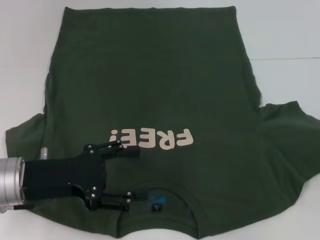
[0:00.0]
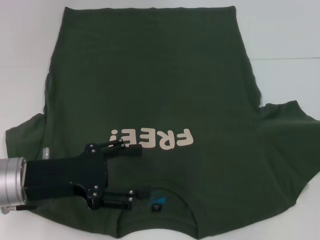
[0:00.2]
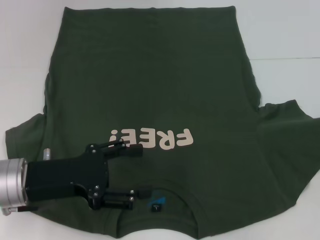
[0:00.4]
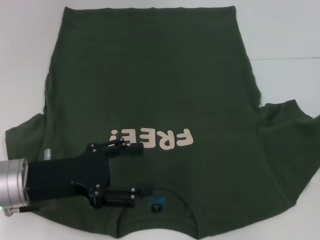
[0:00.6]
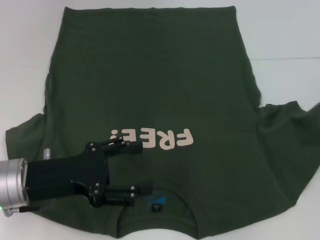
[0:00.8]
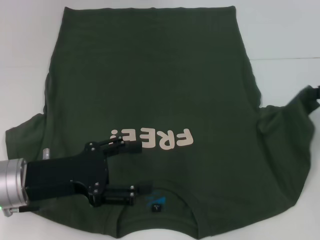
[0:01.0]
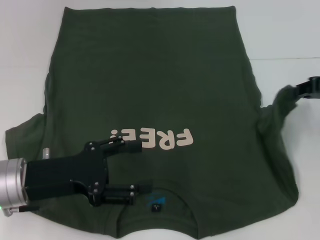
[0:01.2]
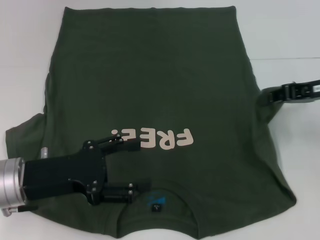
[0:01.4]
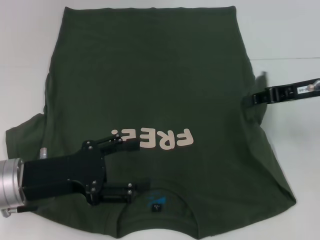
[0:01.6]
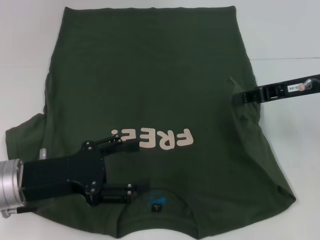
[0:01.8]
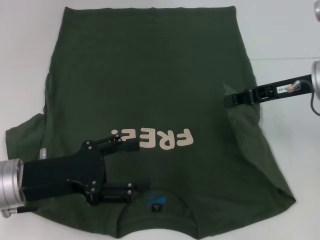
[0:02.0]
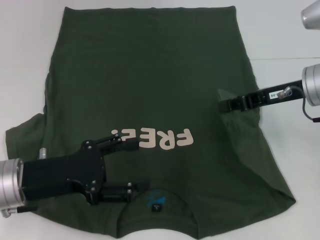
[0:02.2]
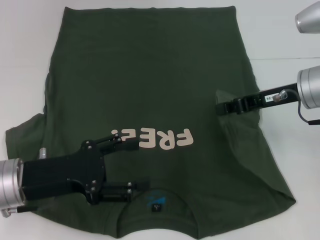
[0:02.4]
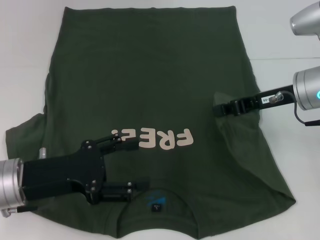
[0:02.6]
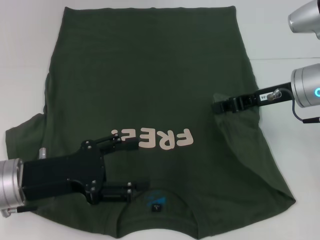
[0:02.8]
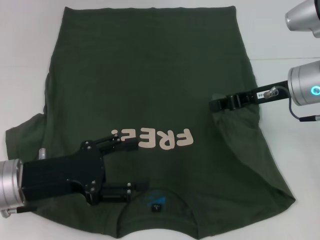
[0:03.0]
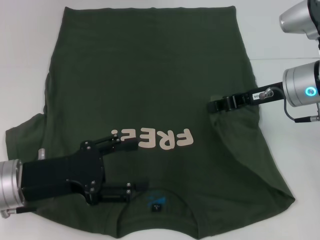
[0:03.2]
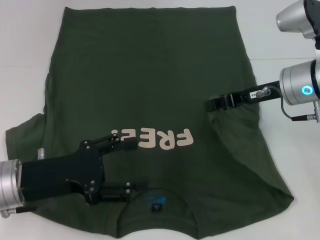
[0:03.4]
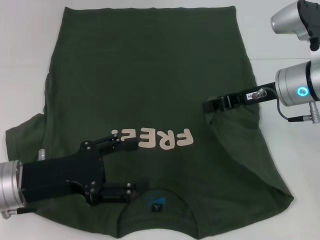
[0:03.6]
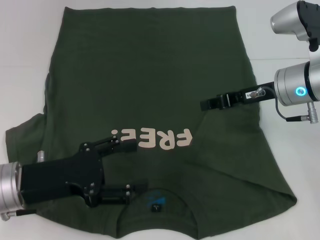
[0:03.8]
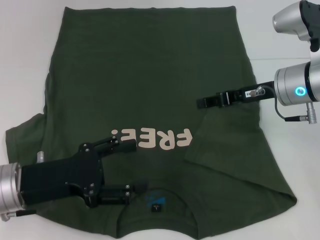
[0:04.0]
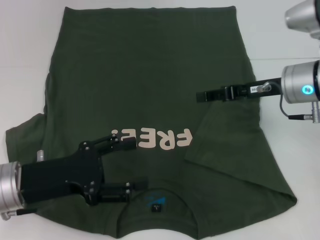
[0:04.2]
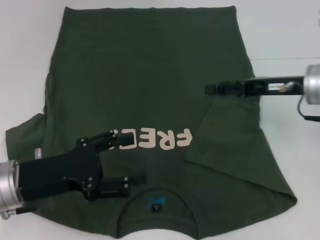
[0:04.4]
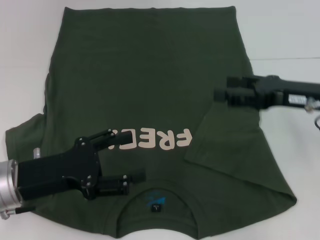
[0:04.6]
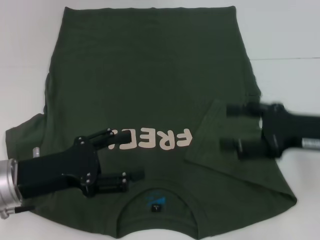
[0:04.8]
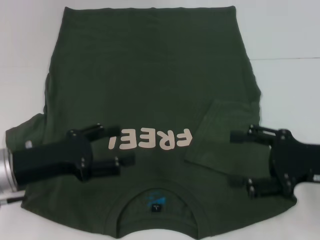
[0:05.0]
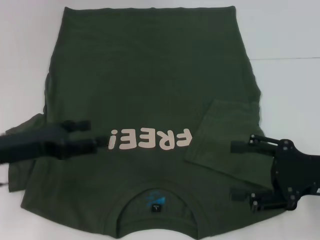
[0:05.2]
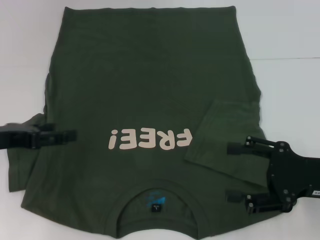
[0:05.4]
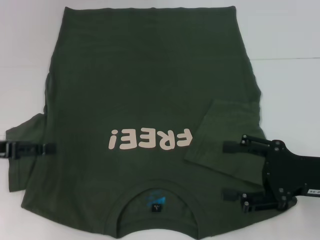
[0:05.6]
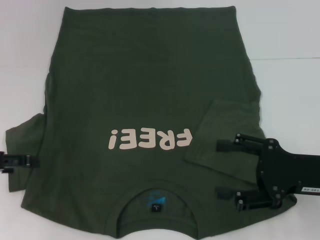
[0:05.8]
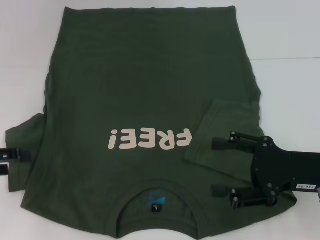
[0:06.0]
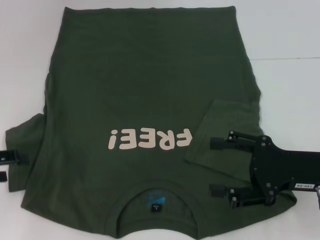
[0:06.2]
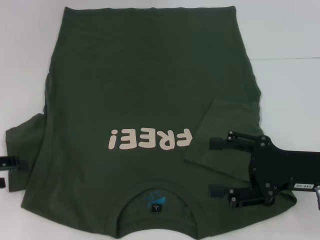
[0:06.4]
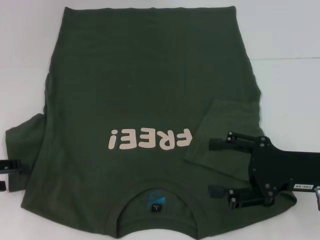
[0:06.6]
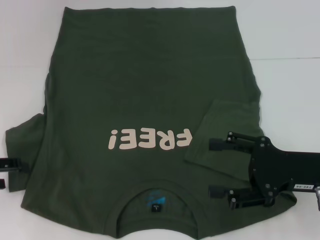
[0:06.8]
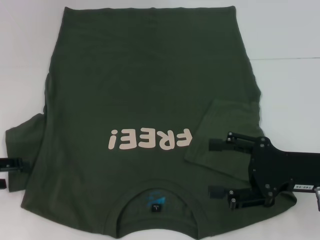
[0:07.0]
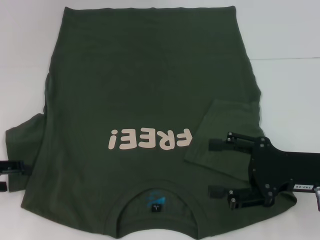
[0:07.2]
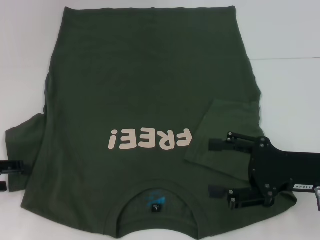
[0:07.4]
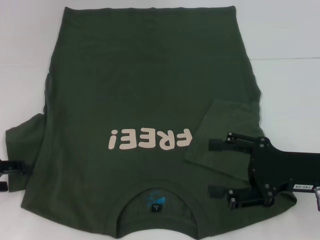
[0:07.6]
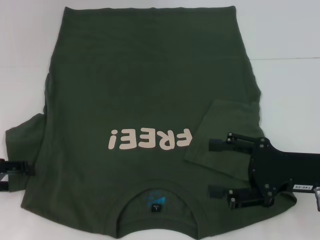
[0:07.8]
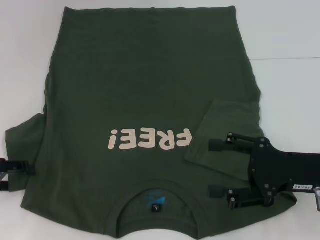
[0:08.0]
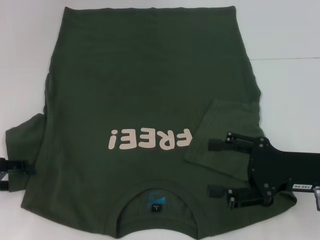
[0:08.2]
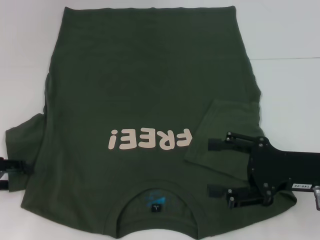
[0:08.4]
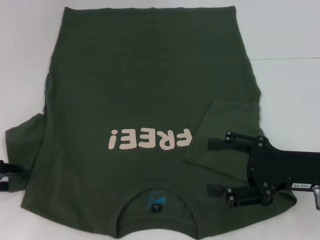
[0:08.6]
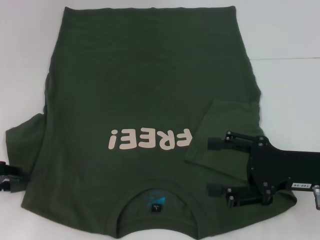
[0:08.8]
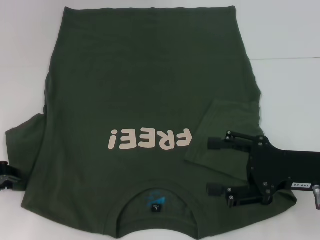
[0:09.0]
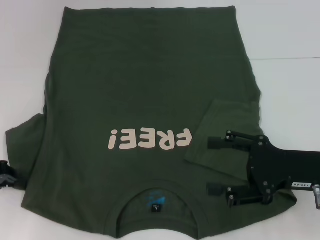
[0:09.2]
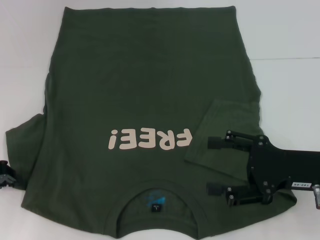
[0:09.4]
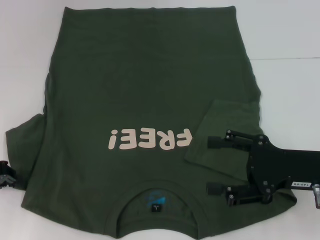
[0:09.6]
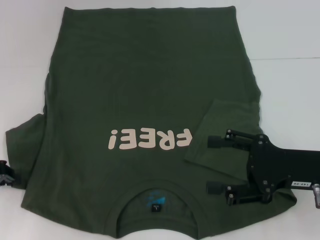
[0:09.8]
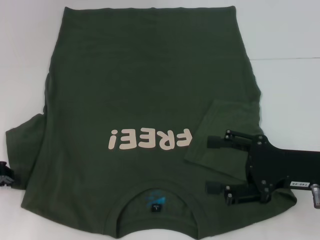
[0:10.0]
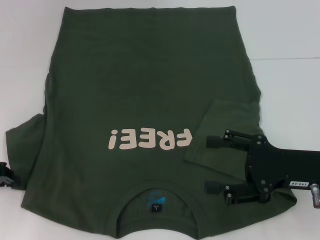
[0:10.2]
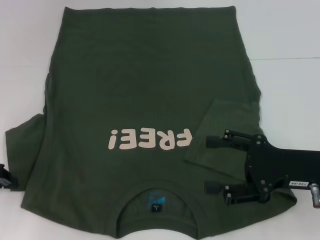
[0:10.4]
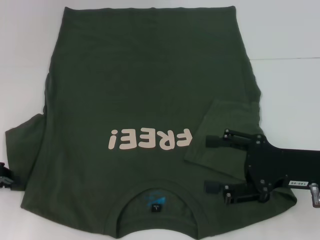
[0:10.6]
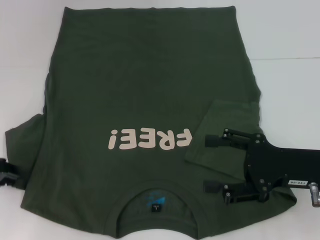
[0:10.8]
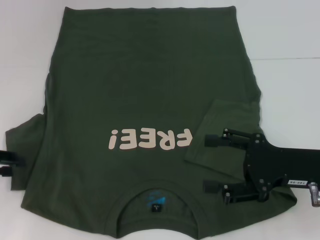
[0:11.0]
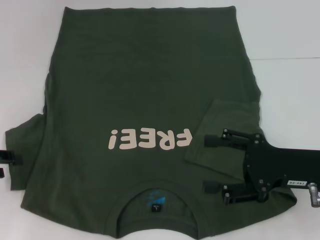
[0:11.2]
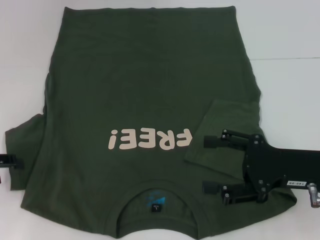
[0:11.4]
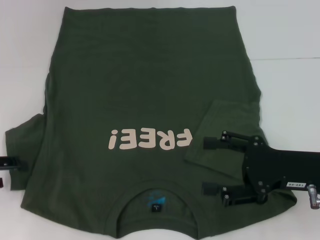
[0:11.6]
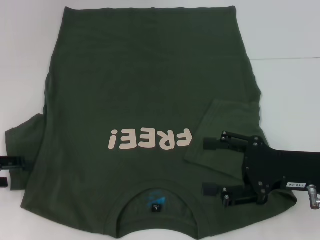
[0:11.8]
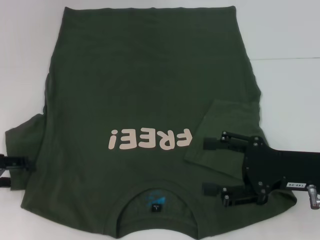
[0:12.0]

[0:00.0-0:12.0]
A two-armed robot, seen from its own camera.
Step, 0:00.0 to 0:04.2: Fold the bottom right sleeve with your right hand.
0:00.0 to 0:01.6: The right gripper heads to the left, covering some 15 cm.
0:01.6 to 0:03.0: The right gripper moves to the left, about 5 cm.
0:03.0 to 0:04.4: The right gripper opens.
0:04.4 to 0:06.0: The left gripper is displaced to the left by some 10 cm; the right gripper goes about 10 cm backward, and opens its fingers.
0:06.0 to 0:07.6: The grippers make only small movements.
0:10.4 to 0:12.0: The left gripper opens its fingers.

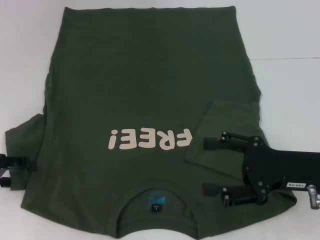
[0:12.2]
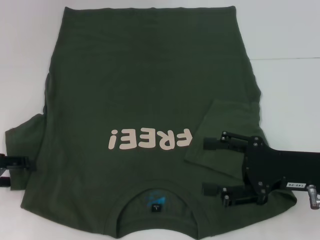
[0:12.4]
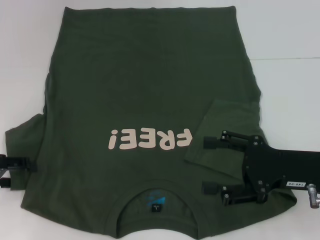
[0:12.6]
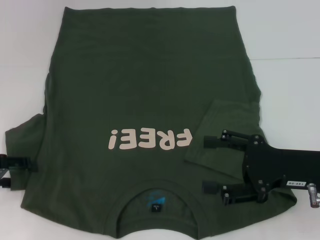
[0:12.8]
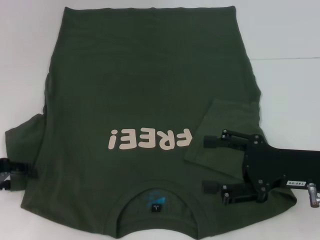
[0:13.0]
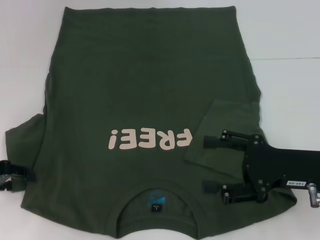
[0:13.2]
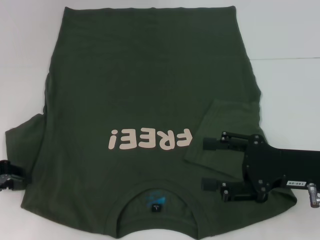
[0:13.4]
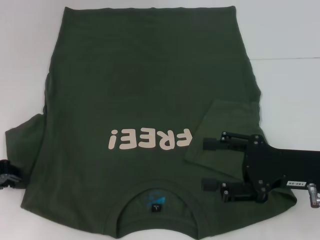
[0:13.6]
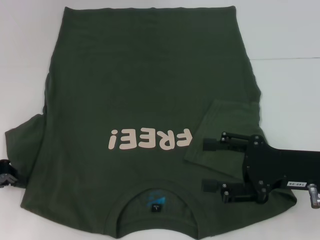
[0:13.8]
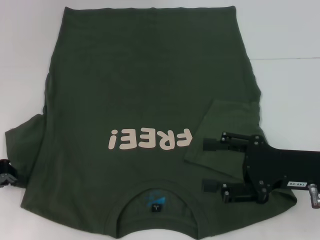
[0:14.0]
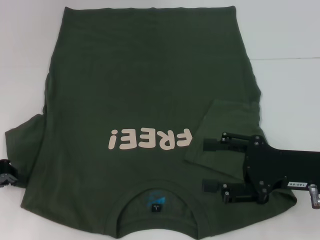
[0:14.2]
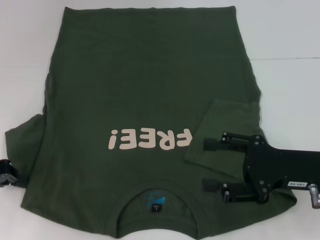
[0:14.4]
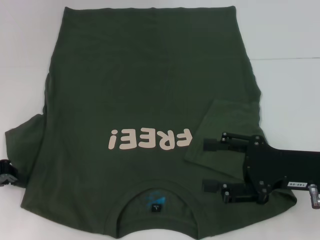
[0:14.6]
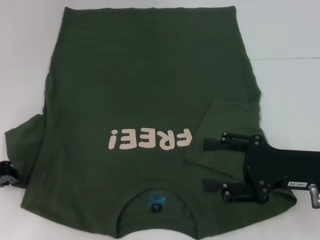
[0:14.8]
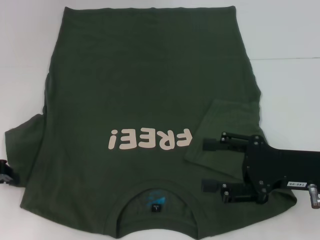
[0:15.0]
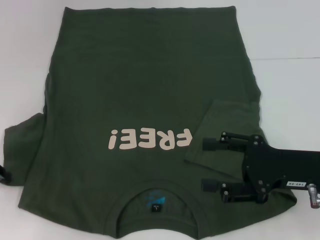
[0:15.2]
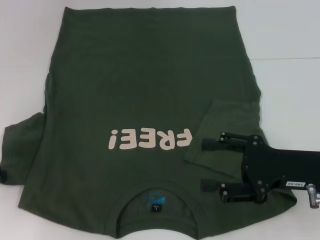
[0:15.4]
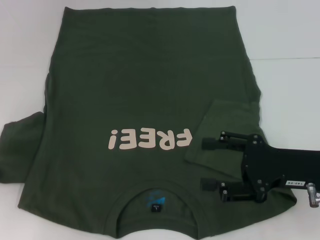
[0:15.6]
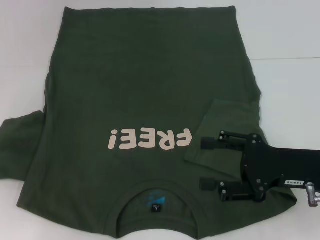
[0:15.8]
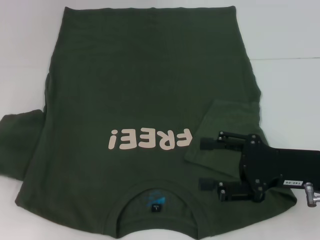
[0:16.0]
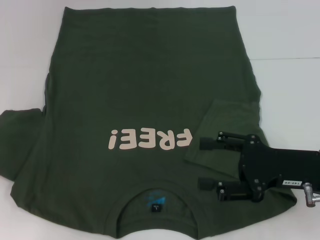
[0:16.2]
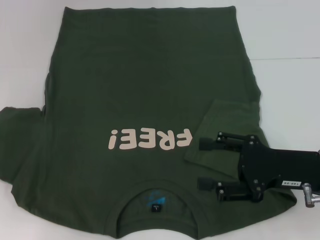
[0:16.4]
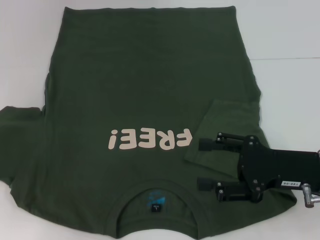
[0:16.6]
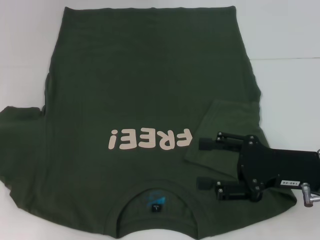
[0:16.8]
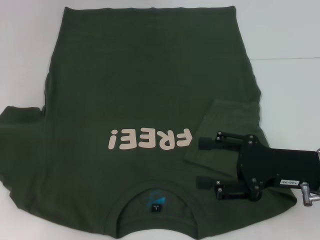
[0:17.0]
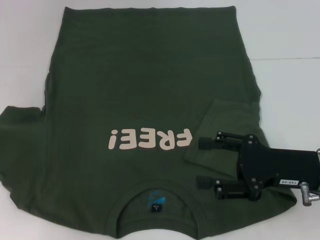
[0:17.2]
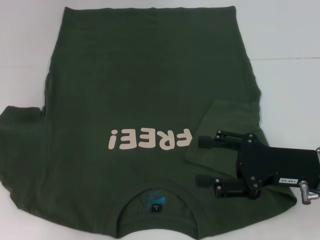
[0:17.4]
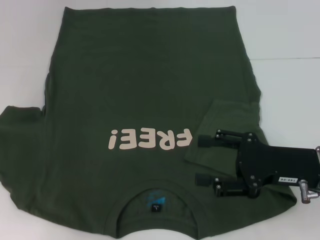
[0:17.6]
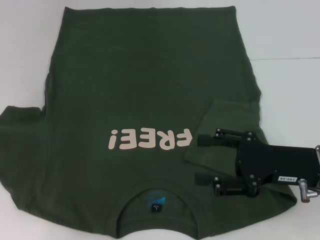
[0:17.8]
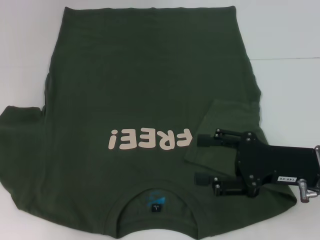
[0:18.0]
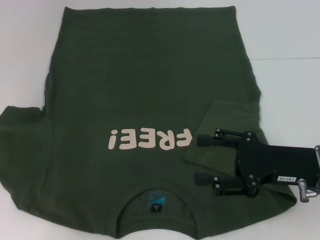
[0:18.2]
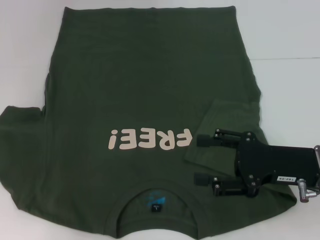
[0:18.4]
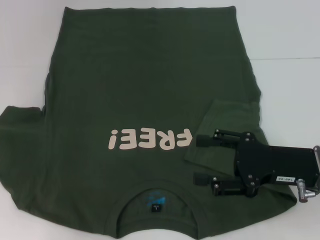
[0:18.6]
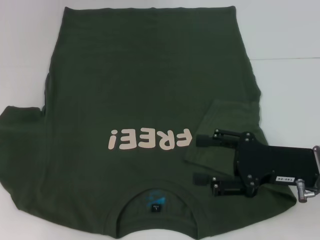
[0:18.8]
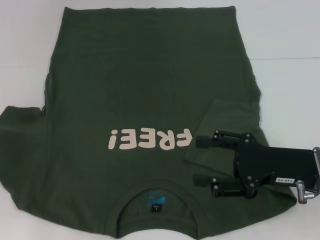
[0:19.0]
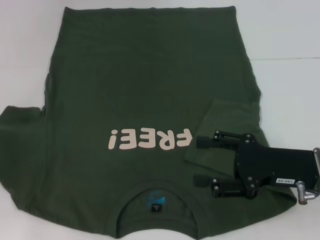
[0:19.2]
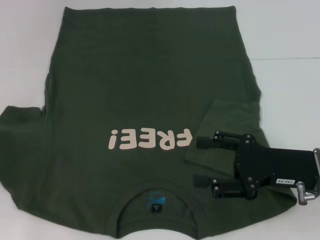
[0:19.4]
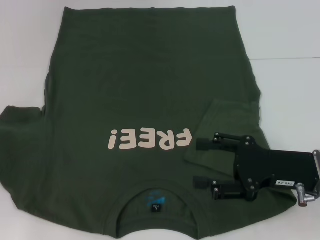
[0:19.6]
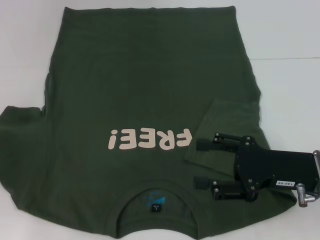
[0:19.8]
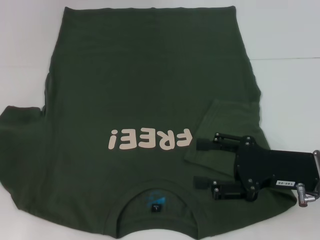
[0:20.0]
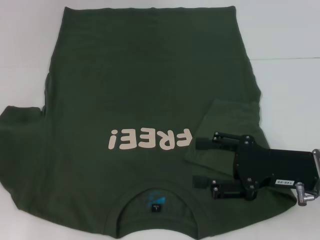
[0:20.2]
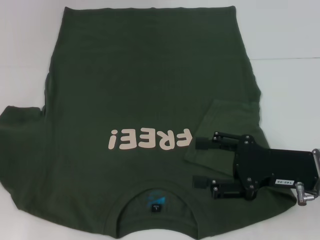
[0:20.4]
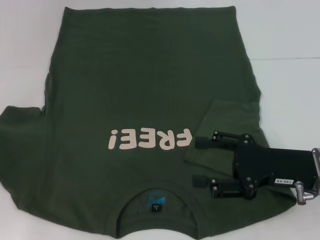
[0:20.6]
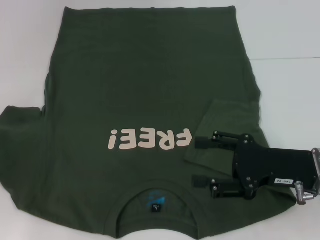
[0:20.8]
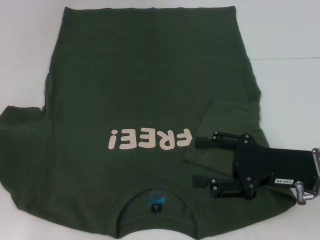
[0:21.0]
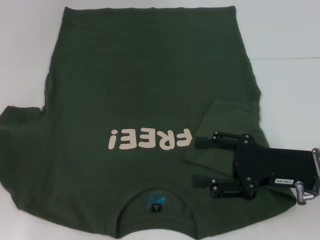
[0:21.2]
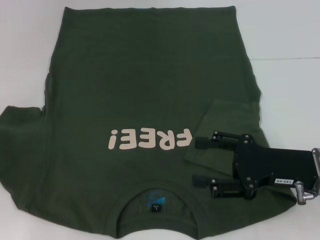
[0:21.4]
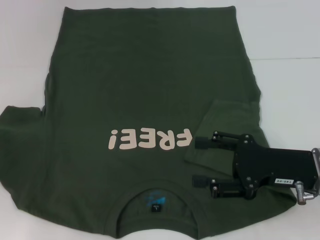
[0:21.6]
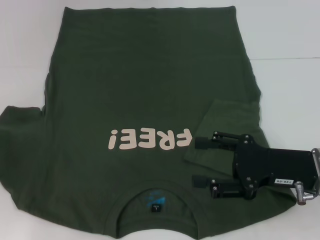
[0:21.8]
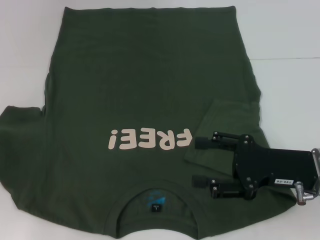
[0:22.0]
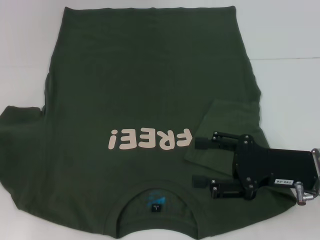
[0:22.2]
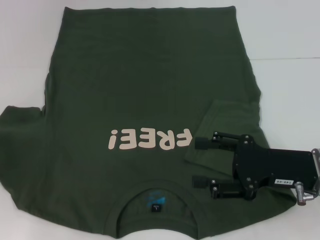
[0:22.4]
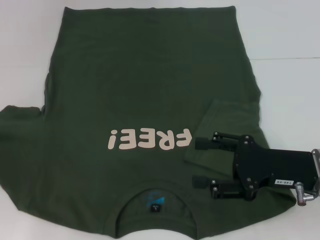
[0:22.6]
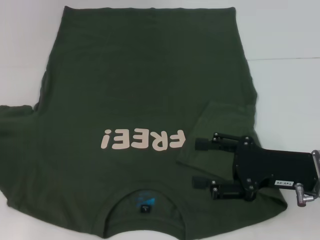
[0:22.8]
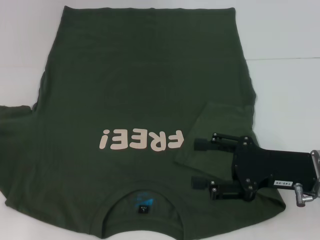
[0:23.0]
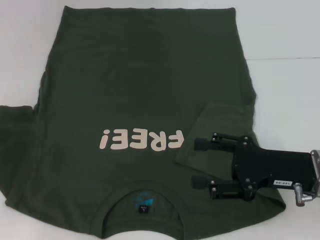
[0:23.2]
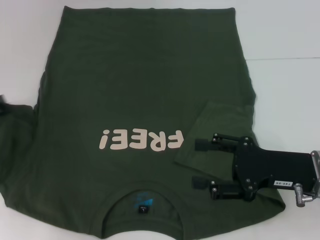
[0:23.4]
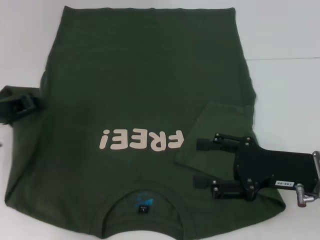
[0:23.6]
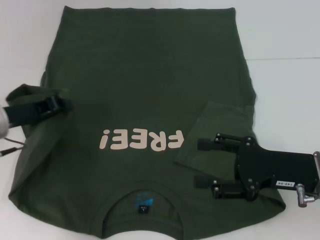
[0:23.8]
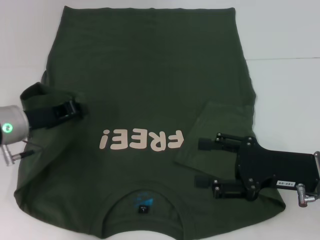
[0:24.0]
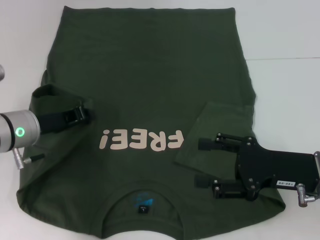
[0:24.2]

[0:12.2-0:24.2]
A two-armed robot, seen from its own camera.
0:13.8 to 0:15.2: There are only small adjustments of the grippers.
0:16.6 to 0:18.2: The grippers make only small movements.
0:19.8 to 0:21.2: Both grippers stay about where they are.
0:22.6 to 0:24.2: The left gripper goes some 15 cm to the right.
